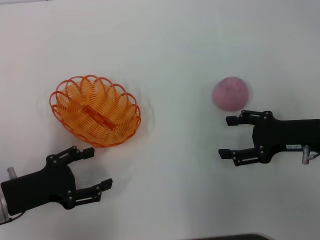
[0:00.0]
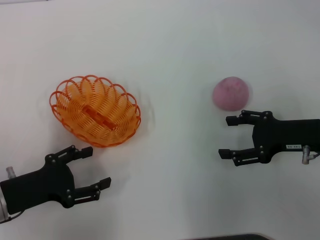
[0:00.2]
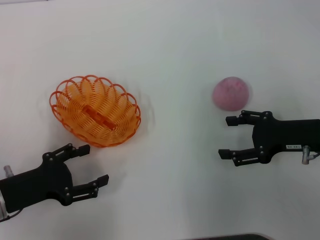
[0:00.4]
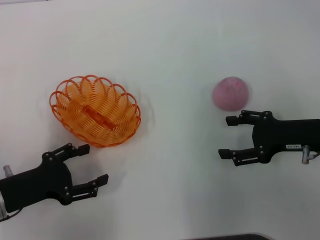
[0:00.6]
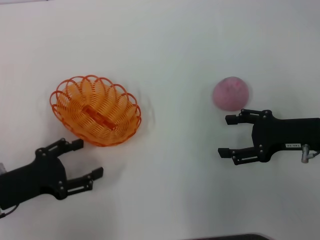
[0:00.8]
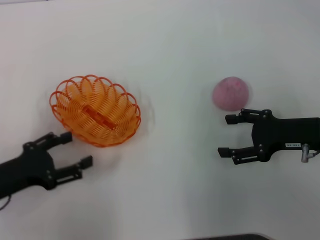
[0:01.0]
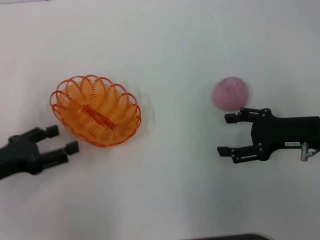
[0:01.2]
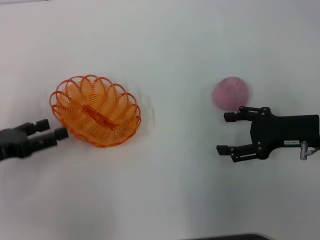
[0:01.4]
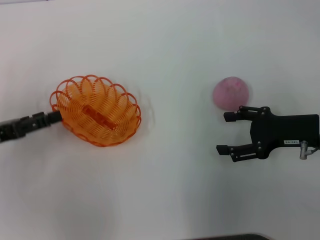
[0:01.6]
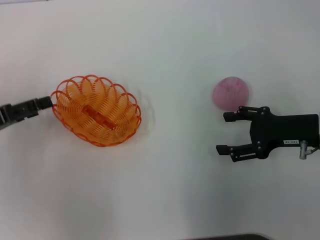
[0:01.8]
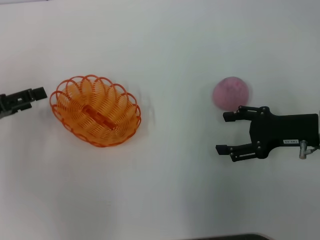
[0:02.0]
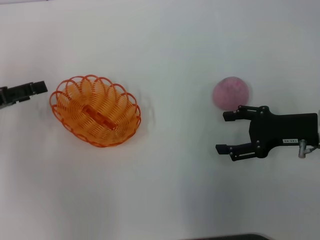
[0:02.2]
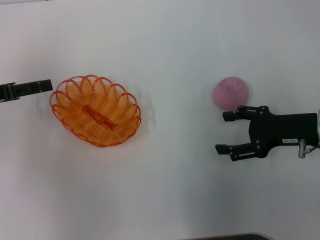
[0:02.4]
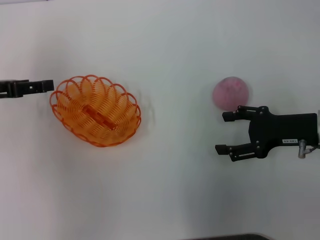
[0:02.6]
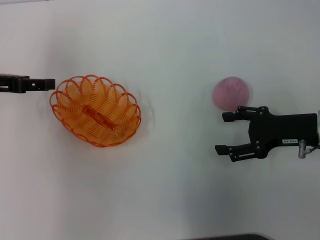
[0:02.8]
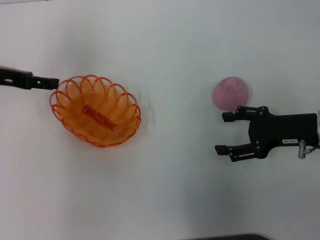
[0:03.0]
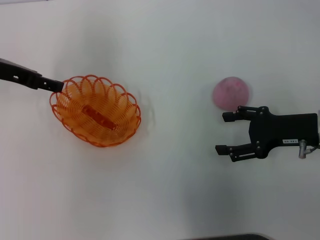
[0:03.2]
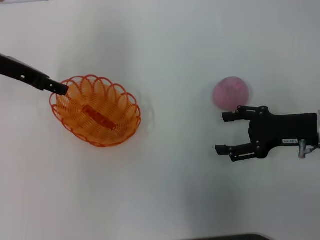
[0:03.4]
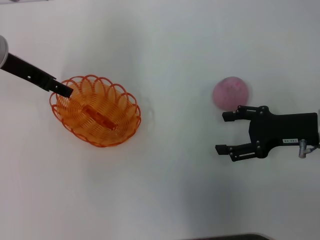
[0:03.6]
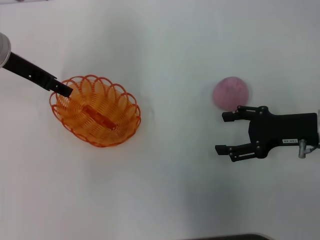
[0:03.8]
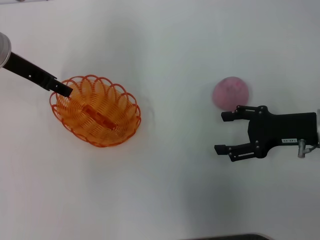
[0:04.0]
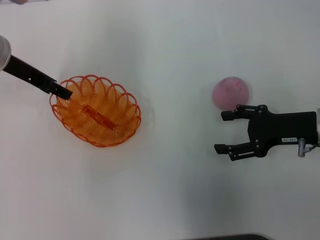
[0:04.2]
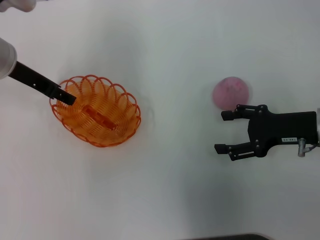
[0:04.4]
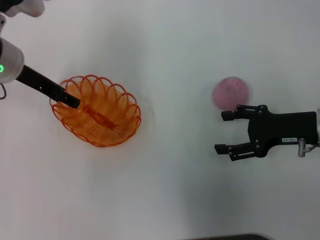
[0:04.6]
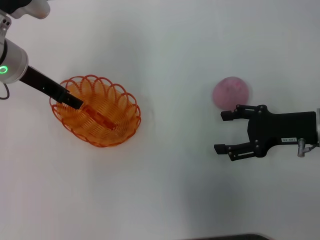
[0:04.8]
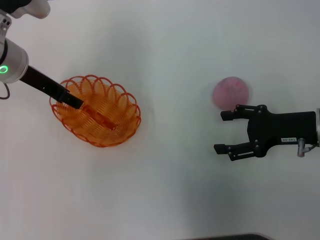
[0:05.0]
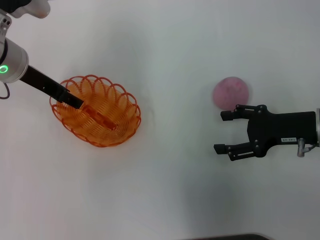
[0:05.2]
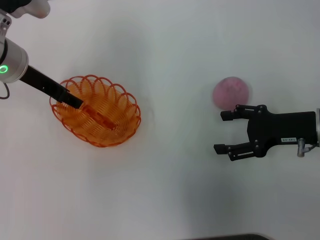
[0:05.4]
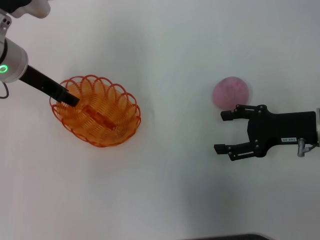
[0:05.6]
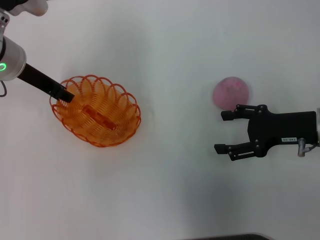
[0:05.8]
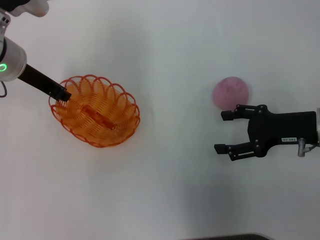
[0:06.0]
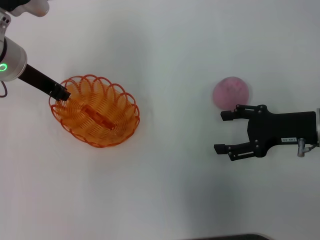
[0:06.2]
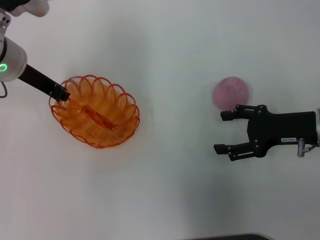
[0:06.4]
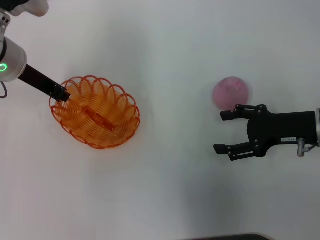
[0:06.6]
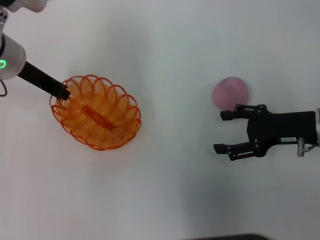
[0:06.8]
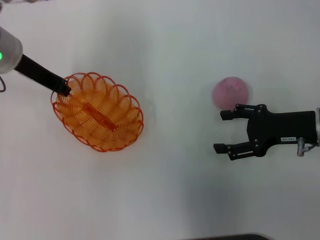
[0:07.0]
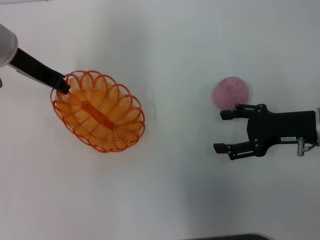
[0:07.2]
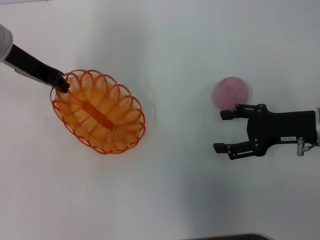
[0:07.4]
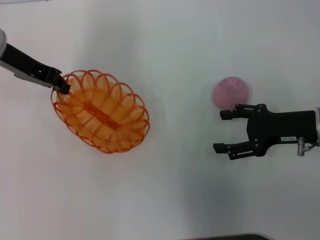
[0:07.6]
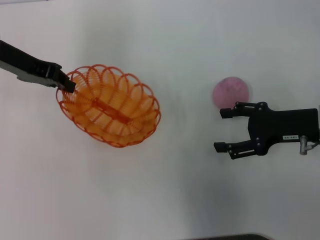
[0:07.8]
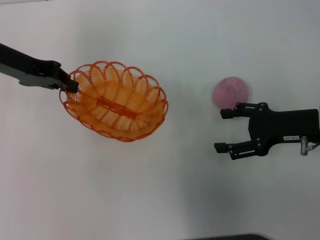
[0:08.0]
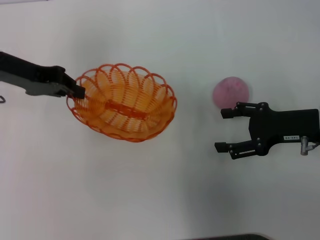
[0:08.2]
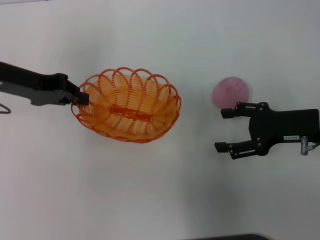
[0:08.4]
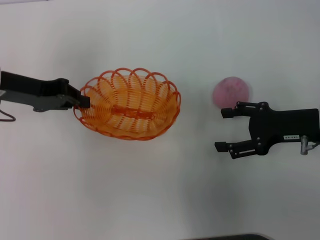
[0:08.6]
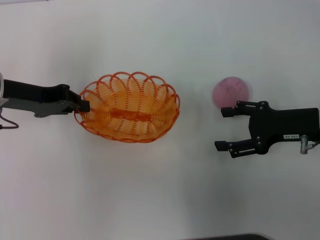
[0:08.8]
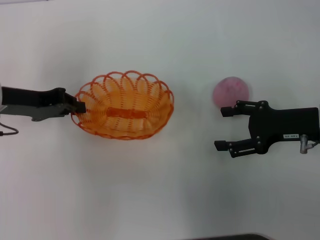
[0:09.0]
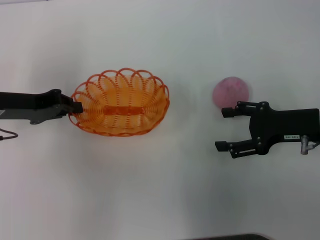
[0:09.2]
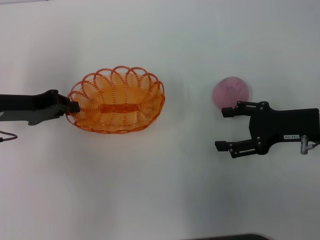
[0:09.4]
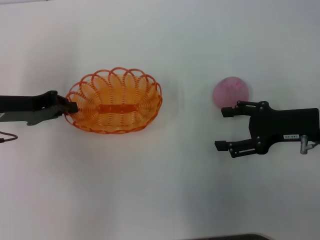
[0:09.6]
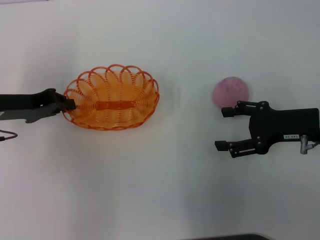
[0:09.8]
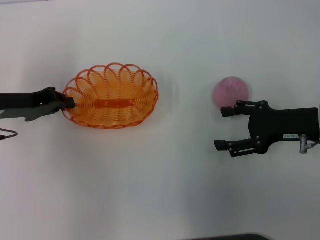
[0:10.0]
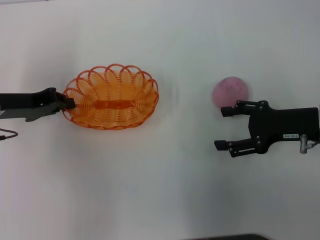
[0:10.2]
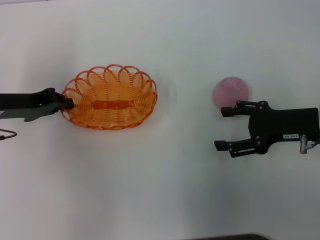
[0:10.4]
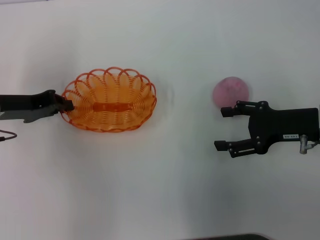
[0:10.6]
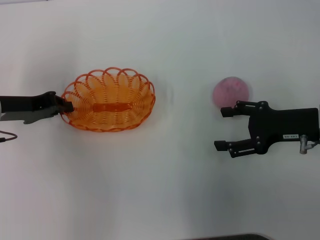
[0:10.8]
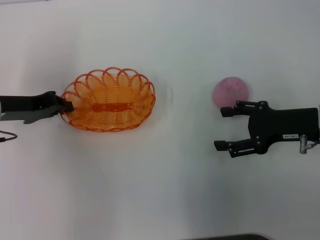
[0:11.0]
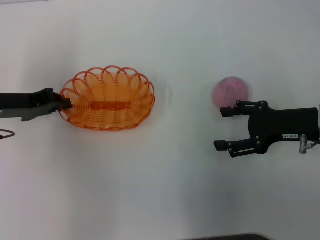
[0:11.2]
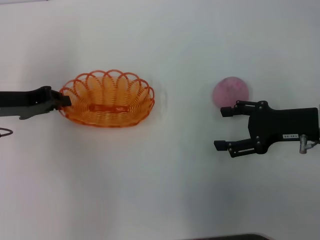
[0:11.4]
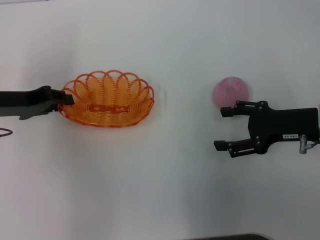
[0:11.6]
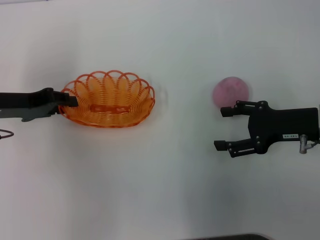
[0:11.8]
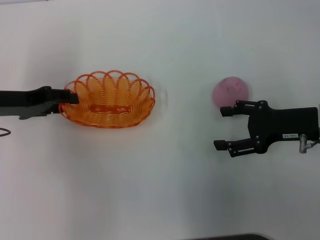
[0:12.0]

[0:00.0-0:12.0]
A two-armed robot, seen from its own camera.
Step, 0:00.0 to 0:08.0: Pick up the basket with the left gripper.
0:00.0 to 0:01.6: The left gripper heads to the left and forward, covering about 5 cm.
0:01.6 to 0:03.0: The left gripper travels forward and upward by some 15 cm.
0:03.0 to 0:04.4: The left gripper is displaced to the right by some 5 cm.
0:04.4 to 0:06.0: The left gripper closes.
0:06.0 to 0:07.6: There are only small adjustments of the grippers.
0:07.6 to 0:09.0: The left gripper travels backward and downward by some 10 cm.
0:09.0 to 0:10.4: The grippers move only a little.
0:10.4 to 0:12.0: The left gripper opens up.

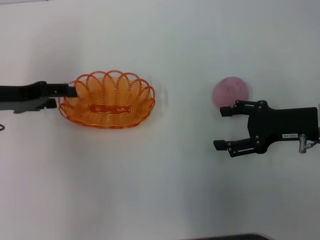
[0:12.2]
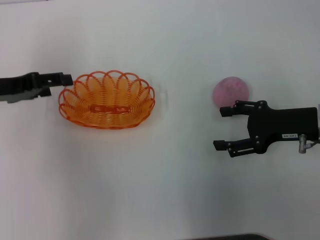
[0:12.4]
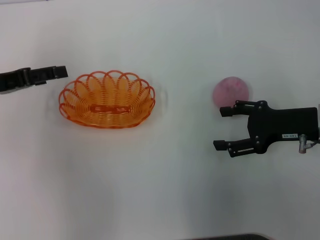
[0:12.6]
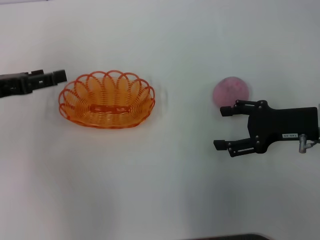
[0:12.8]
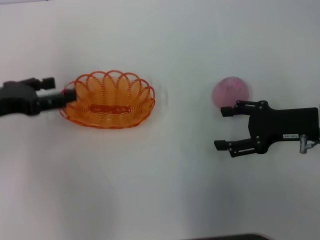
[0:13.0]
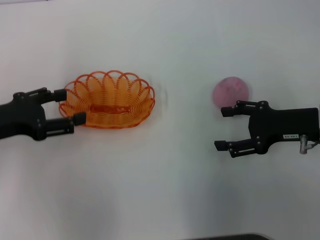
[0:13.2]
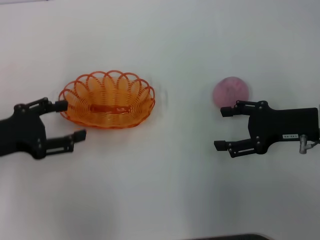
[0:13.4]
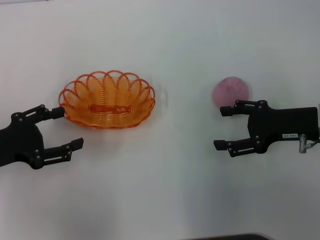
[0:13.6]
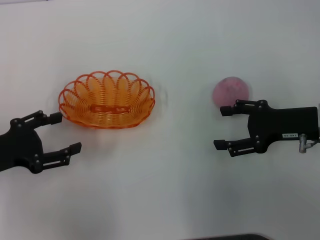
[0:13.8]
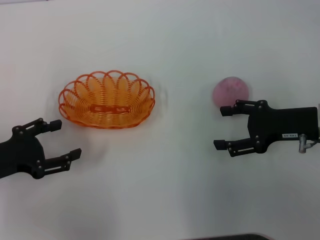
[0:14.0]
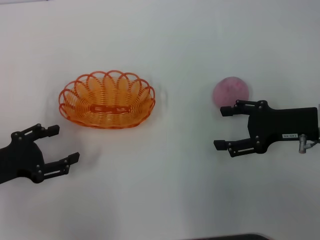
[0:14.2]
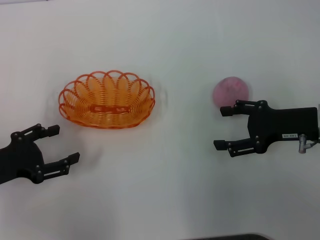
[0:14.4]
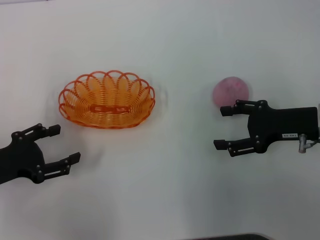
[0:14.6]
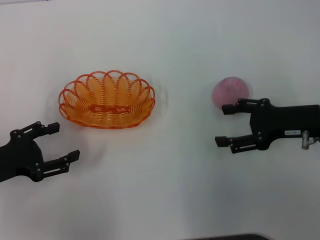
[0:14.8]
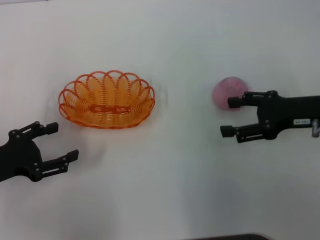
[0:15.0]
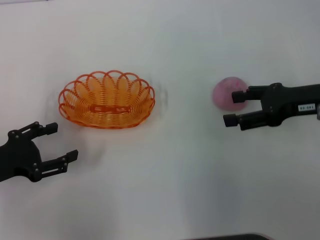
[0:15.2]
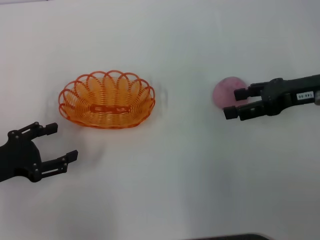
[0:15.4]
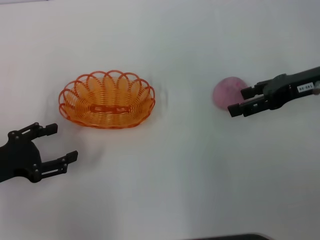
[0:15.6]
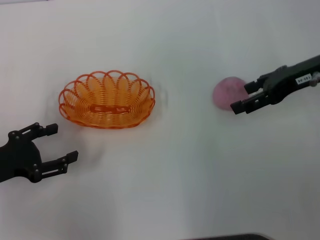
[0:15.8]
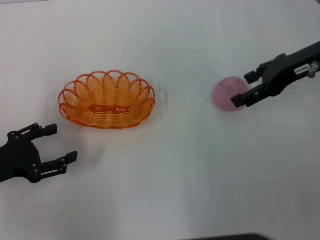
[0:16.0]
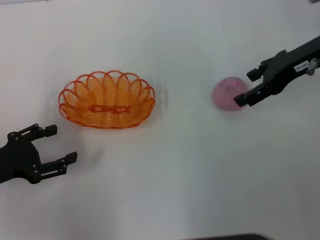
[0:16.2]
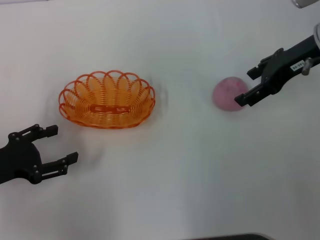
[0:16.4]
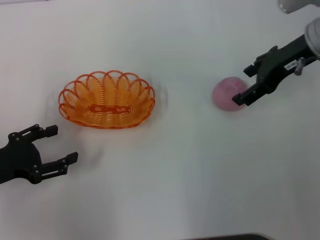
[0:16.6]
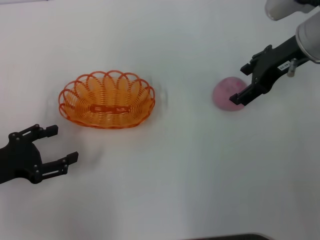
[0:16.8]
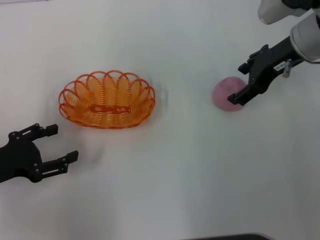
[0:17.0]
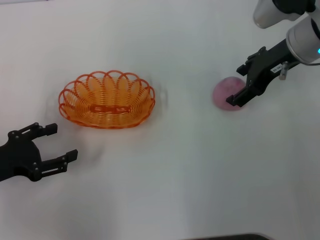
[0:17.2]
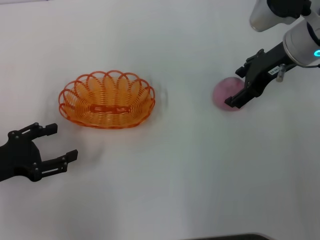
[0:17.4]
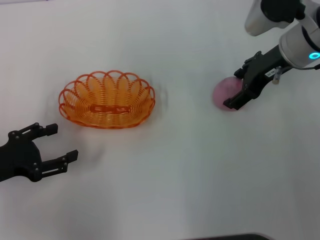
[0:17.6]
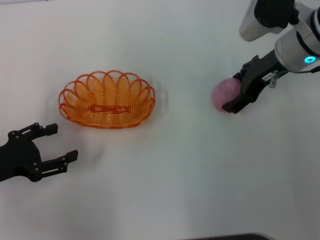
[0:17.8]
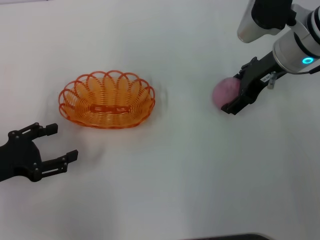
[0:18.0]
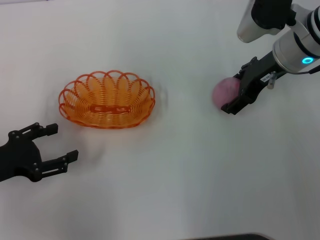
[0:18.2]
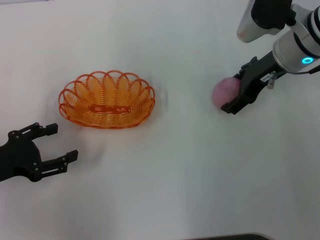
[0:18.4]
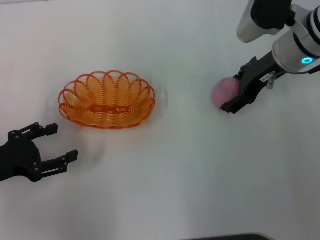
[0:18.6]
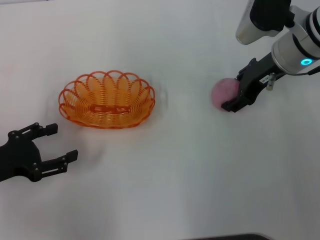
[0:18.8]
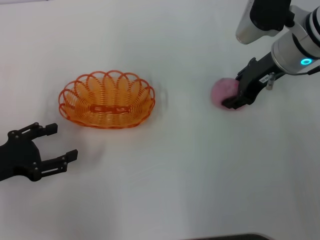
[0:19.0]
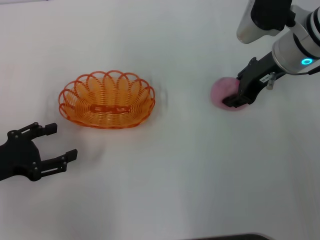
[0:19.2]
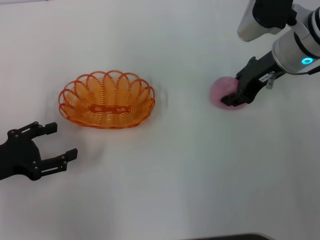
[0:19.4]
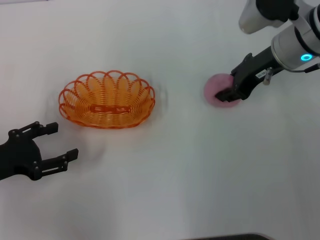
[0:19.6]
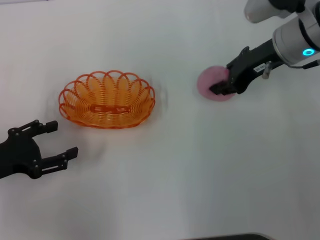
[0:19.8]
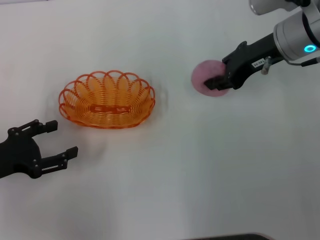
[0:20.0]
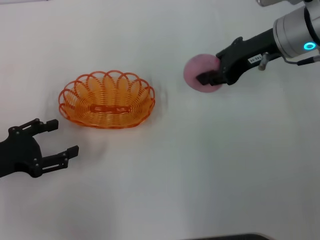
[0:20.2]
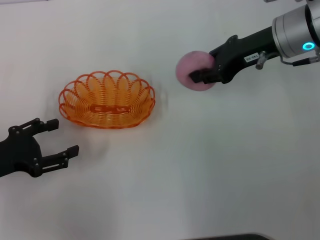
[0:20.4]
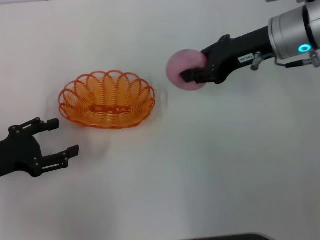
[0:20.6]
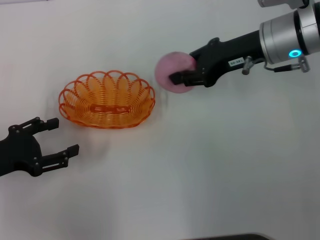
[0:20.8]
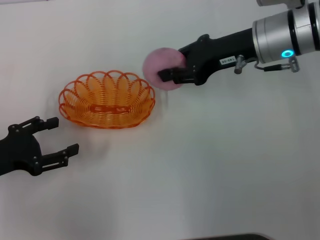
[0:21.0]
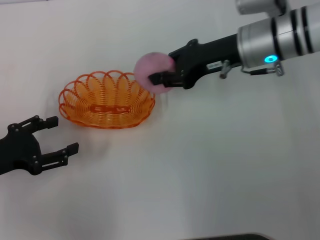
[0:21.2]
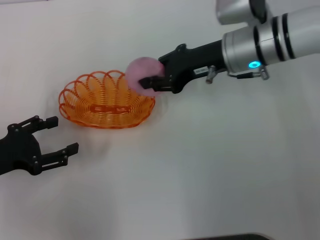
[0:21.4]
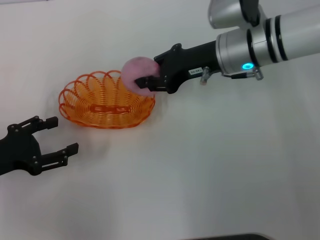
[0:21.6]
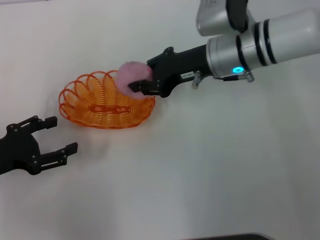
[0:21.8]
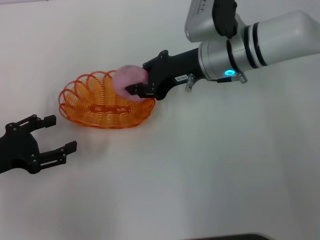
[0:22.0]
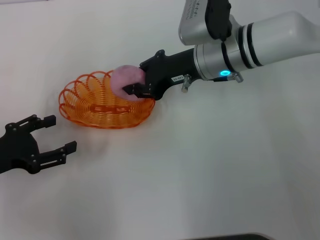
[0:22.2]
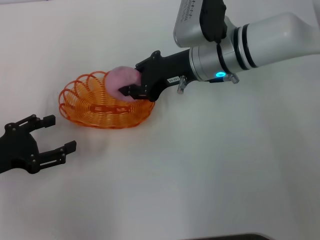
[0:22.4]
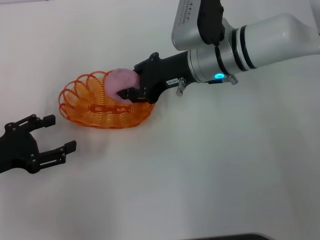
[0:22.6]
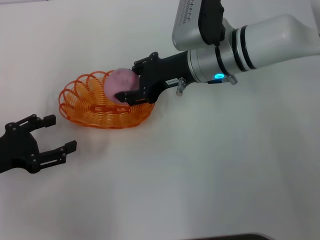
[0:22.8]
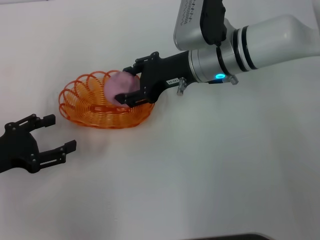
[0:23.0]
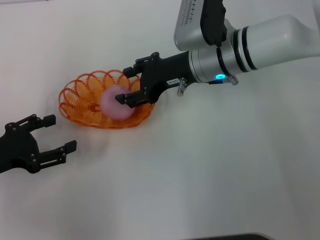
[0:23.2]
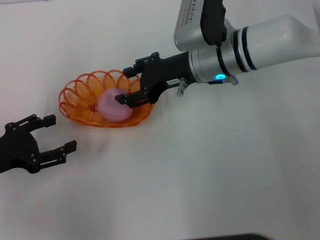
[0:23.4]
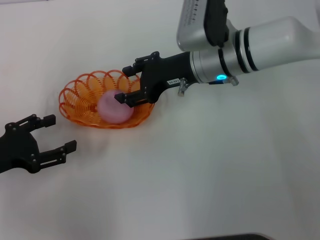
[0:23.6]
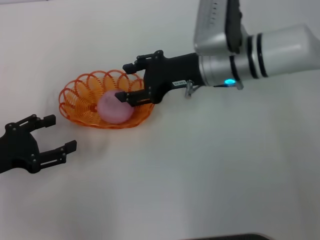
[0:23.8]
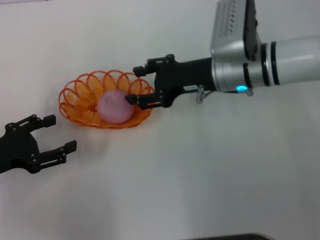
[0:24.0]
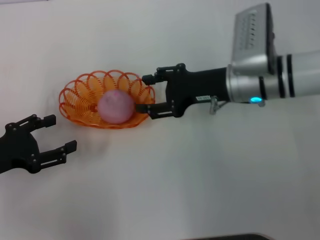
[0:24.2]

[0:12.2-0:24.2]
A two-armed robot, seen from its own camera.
Step, 0:14.0 to 0:20.4: Pick up the peach with the right gripper.
0:12.2 to 0:13.8: The left gripper travels backward by roughly 10 cm, and opens up.
0:13.8 to 0:15.2: There are only small adjustments of the grippers.
0:15.2 to 0:16.6: The right gripper is displaced forward and upward by some 10 cm.
0:16.6 to 0:18.2: The right gripper shifts by some 5 cm.
0:18.2 to 0:19.8: The right gripper closes its fingers.
0:21.2 to 0:22.6: The right gripper shifts some 5 cm to the left.
0:22.6 to 0:24.2: The right gripper is displaced to the right by roughly 5 cm, and opens up.
